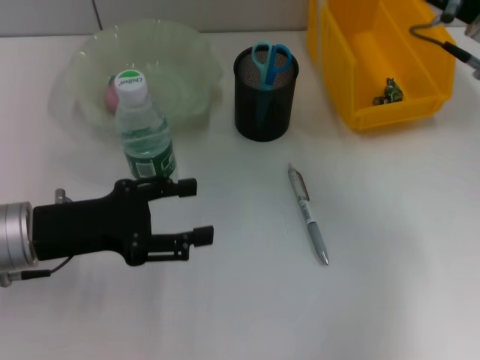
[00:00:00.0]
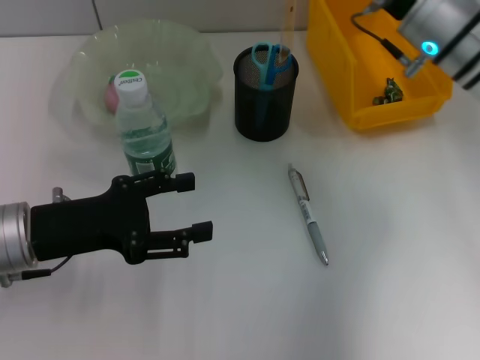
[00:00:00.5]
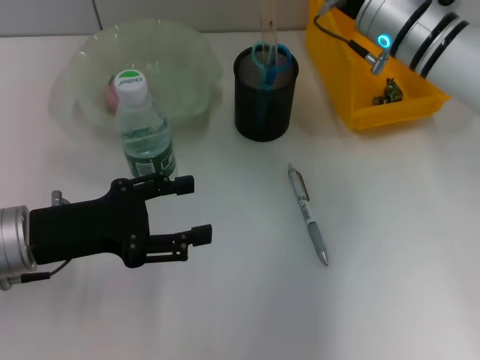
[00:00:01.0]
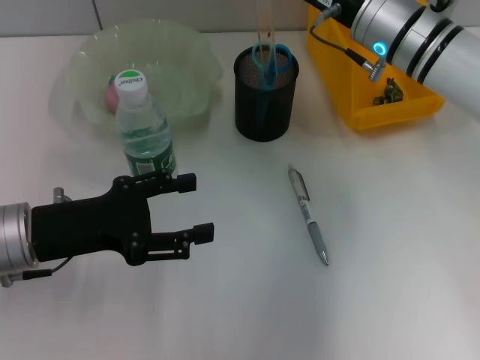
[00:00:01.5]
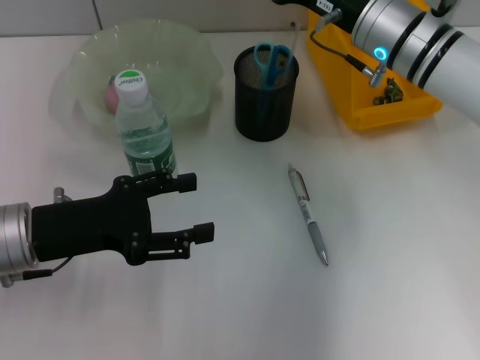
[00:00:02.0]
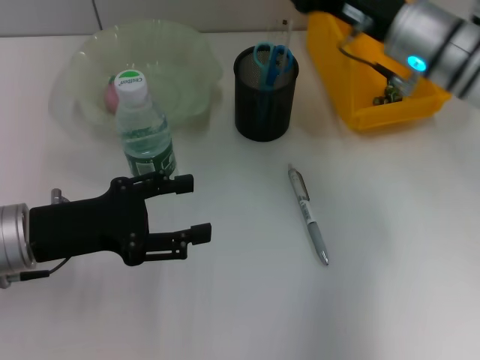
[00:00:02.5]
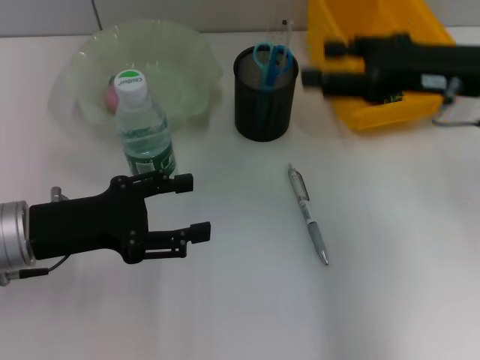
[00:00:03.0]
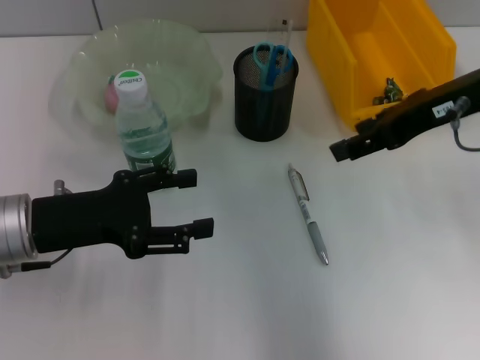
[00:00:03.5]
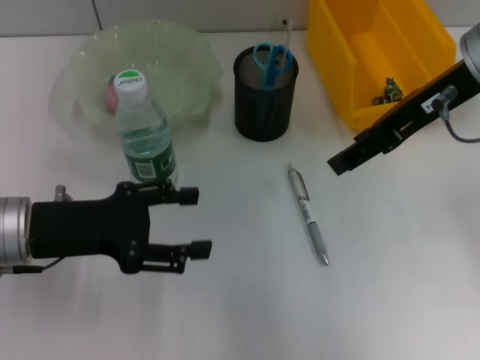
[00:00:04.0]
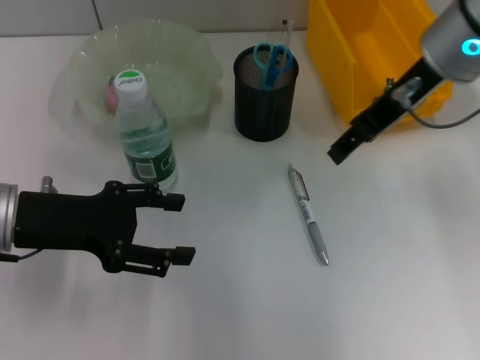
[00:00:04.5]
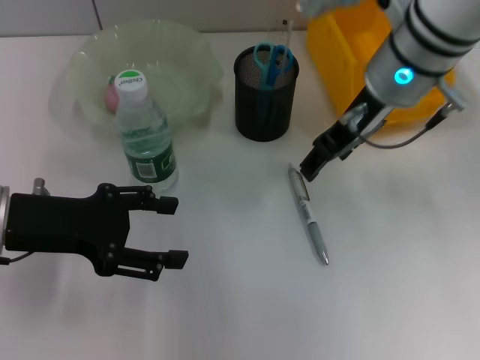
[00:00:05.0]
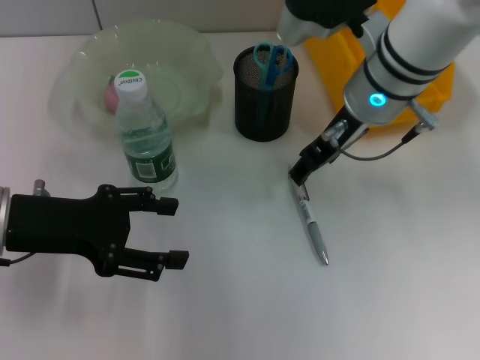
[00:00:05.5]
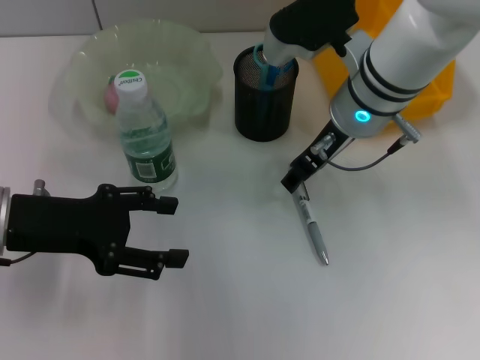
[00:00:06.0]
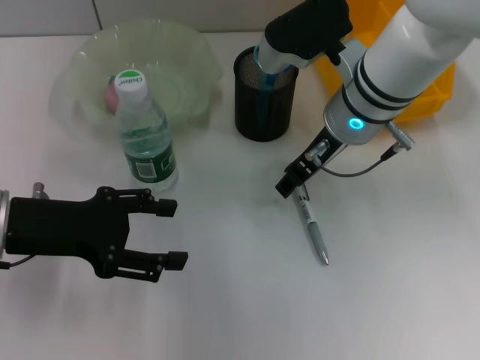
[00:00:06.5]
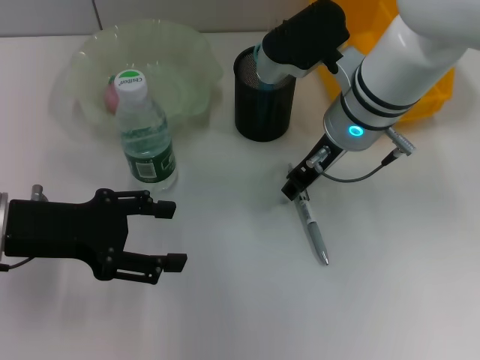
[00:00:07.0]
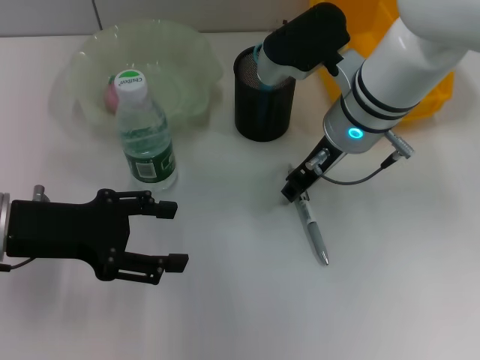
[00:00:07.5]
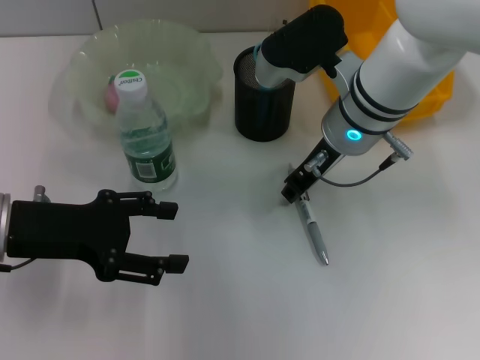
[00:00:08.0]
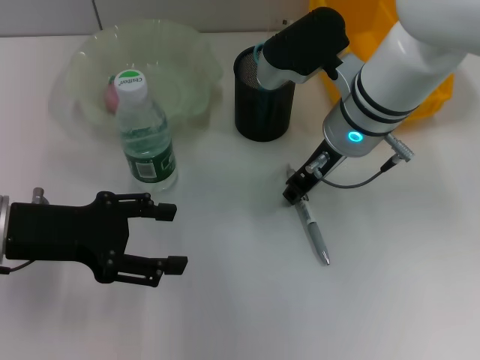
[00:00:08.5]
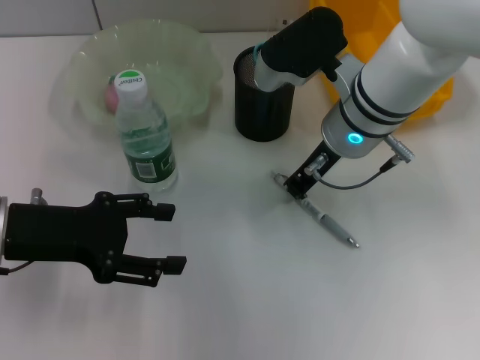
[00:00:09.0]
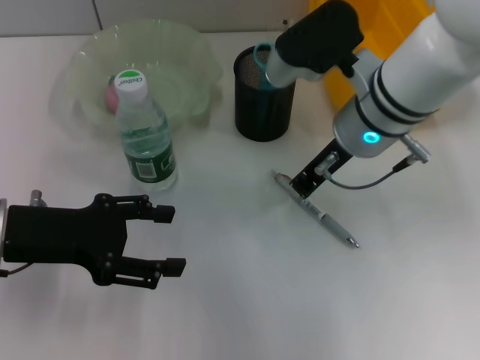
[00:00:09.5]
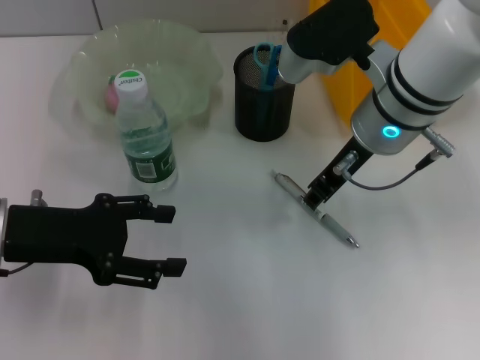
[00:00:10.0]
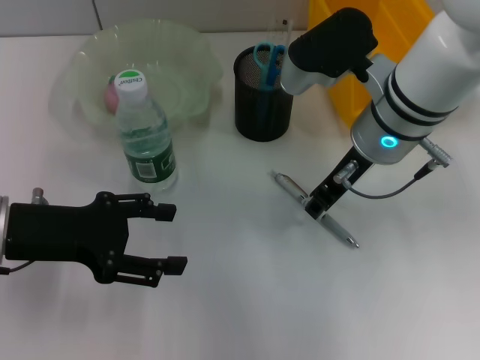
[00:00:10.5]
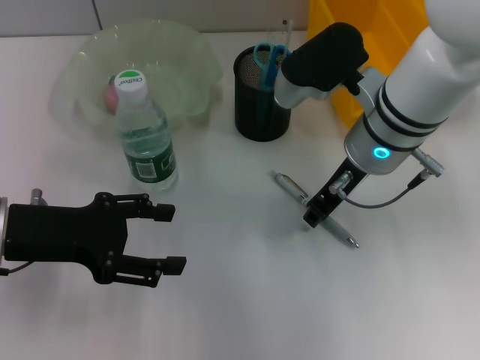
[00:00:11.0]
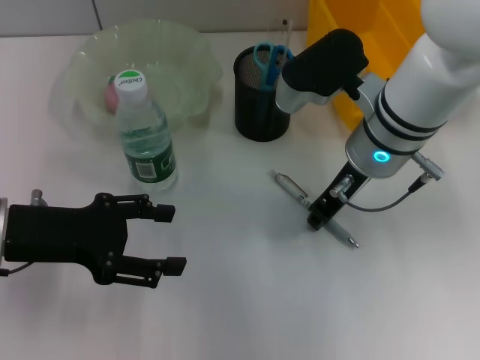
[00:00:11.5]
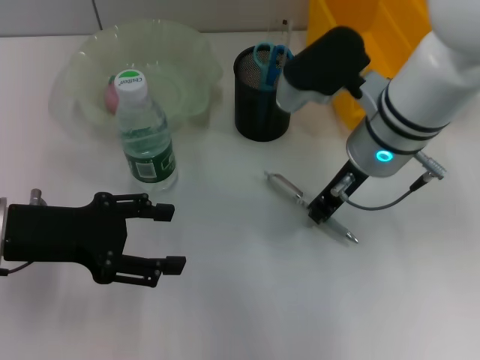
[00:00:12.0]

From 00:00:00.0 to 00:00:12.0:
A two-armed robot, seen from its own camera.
Step, from 00:00:00.0 to 00:00:02.0: Place the ruler into the pen holder with the right hand.
Step, from 00:00:02.5 to 00:00:11.5: Grab the gray spring-action pen with the right hand.
From 00:00:00.0 to 00:00:02.0: The right gripper is displaced to the left, downward and forward by approximately 10 cm.
From 00:00:02.0 to 00:00:04.0: The right gripper moves upward and backward, roughly 15 cm.
From 00:00:04.0 to 00:00:06.0: The right gripper shifts about 15 cm downward and to the left.
From 00:00:06.0 to 00:00:08.0: The right gripper closes.
From 00:00:08.0 to 00:00:10.0: The right gripper closes its fingers.
From 00:00:10.0 to 00:00:12.0: The right gripper opens and closes again.

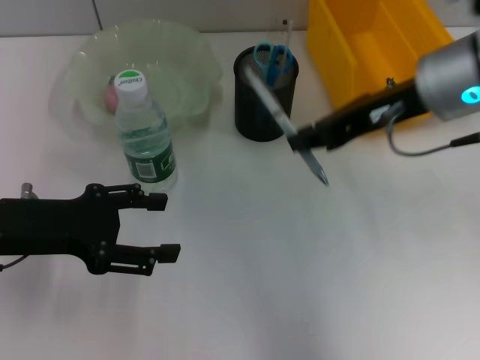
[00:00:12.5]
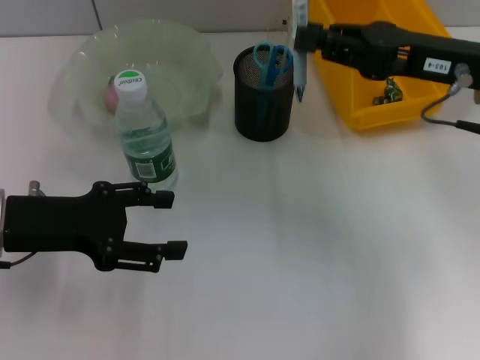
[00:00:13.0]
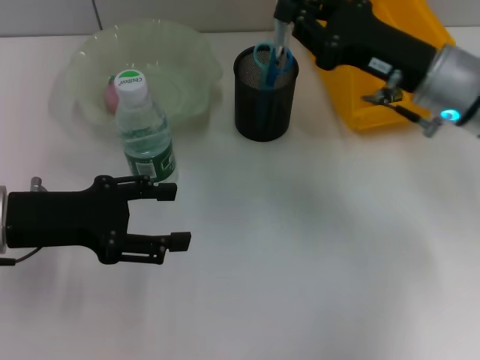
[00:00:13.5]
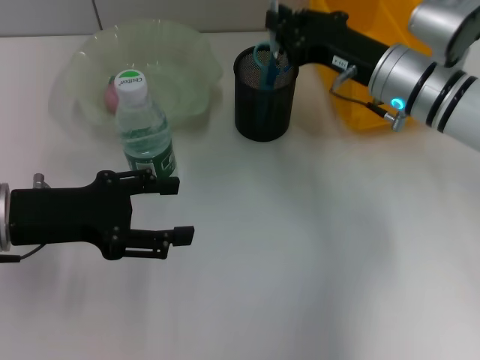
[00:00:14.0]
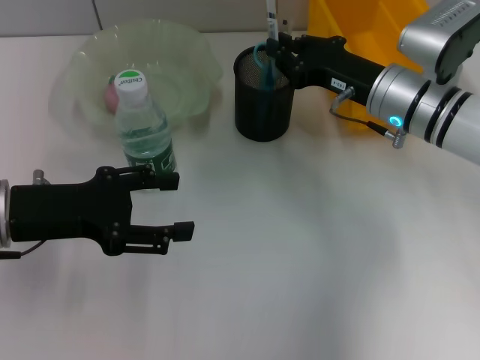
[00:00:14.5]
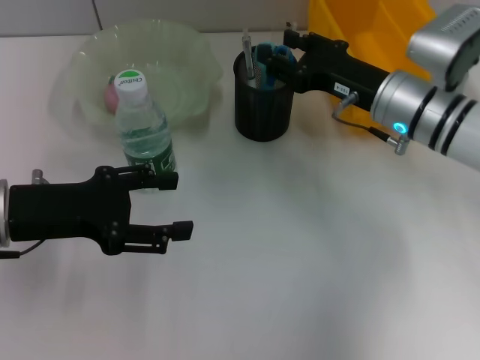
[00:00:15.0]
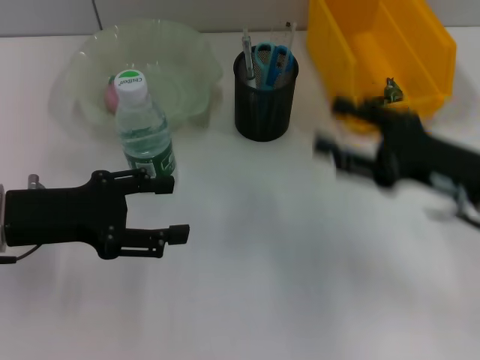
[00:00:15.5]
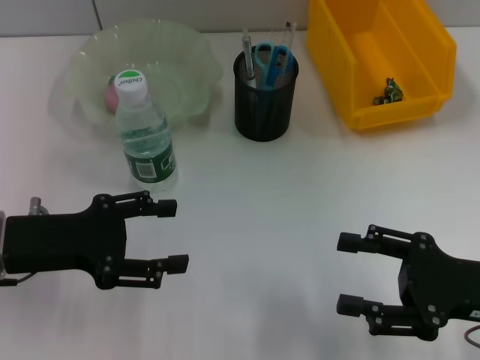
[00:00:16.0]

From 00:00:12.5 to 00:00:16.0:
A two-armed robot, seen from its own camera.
Step, from 00:00:12.5 to 00:00:15.0: Place the gray spring-action pen into the pen holder with the right hand.
From 00:00:12.5 to 00:00:14.5: The right gripper goes about 15 cm downward.
From 00:00:14.5 to 00:00:16.0: The right gripper is displaced backward and to the right by roughly 20 cm, and opens.

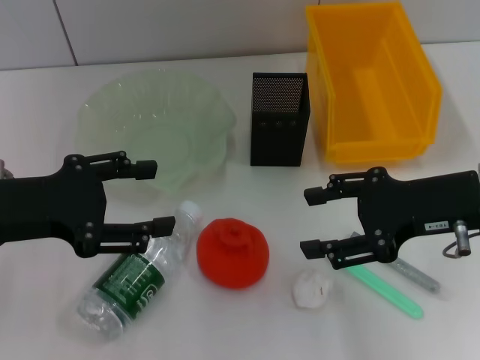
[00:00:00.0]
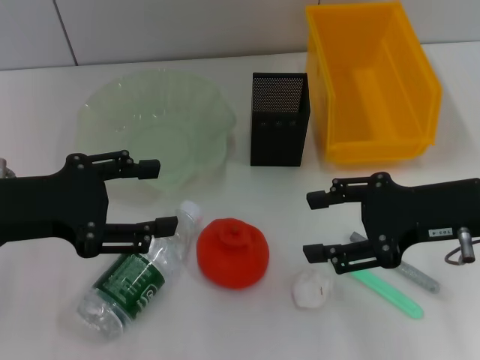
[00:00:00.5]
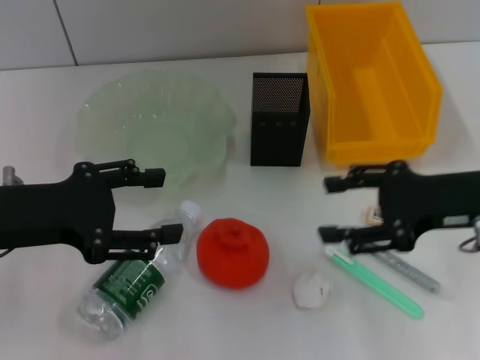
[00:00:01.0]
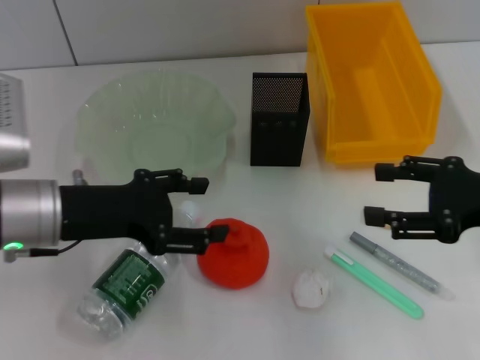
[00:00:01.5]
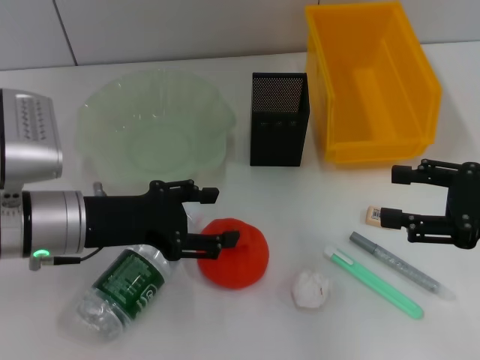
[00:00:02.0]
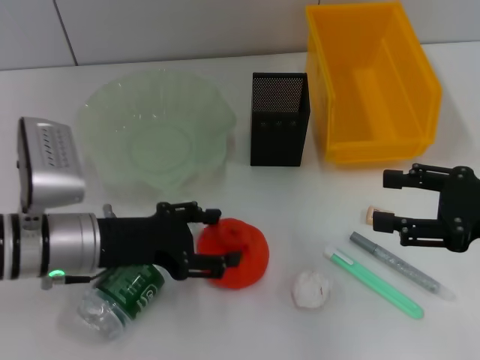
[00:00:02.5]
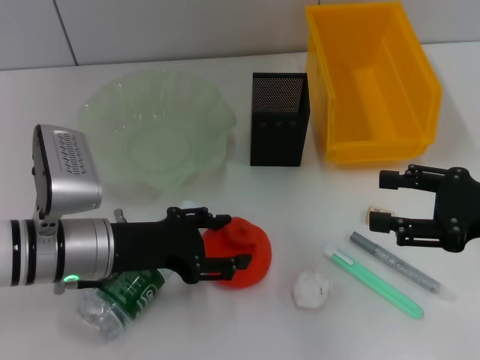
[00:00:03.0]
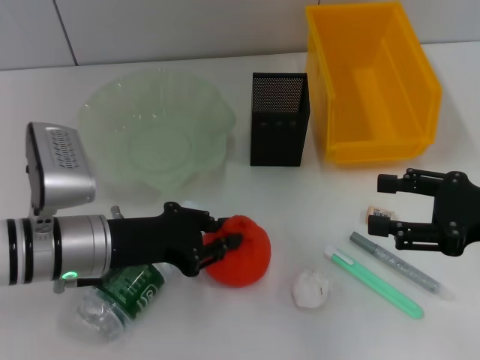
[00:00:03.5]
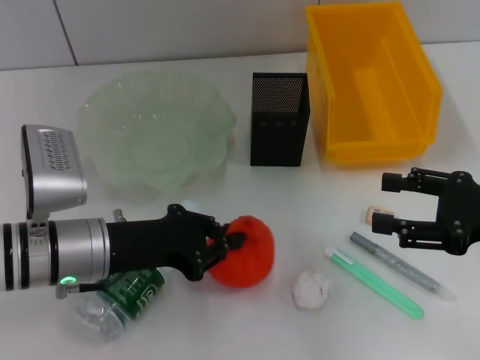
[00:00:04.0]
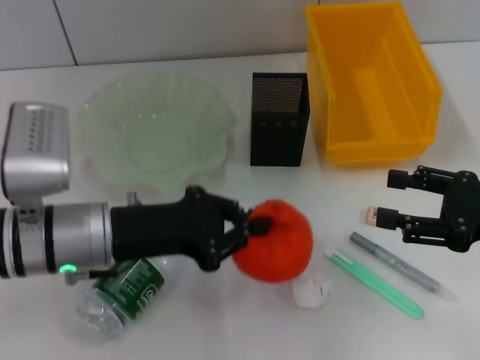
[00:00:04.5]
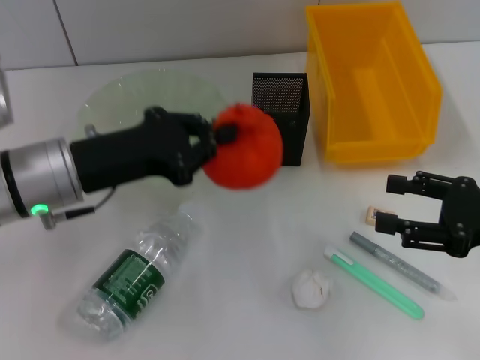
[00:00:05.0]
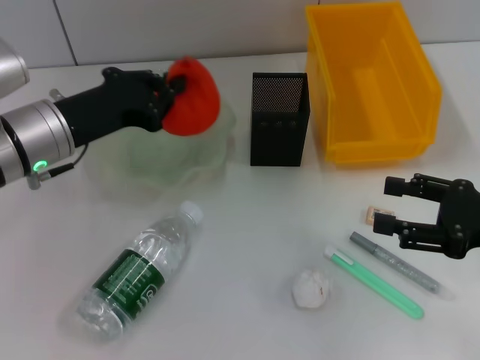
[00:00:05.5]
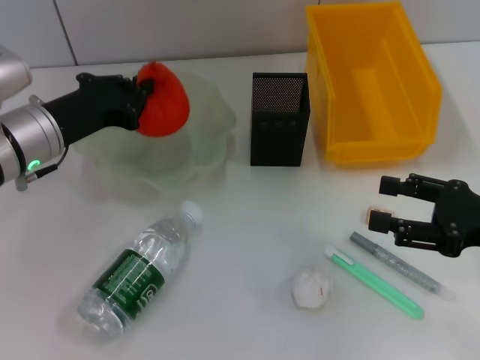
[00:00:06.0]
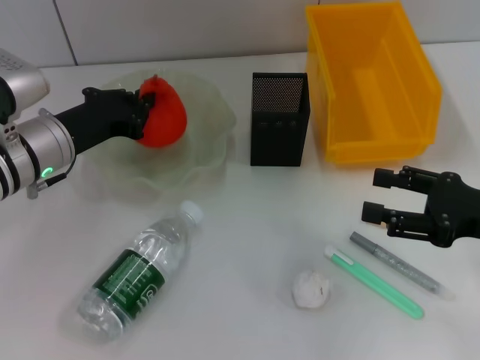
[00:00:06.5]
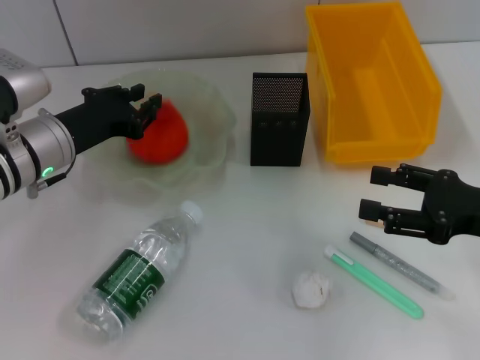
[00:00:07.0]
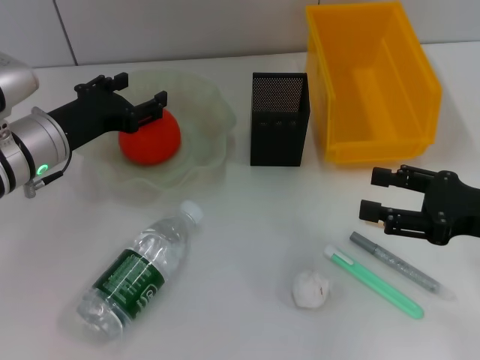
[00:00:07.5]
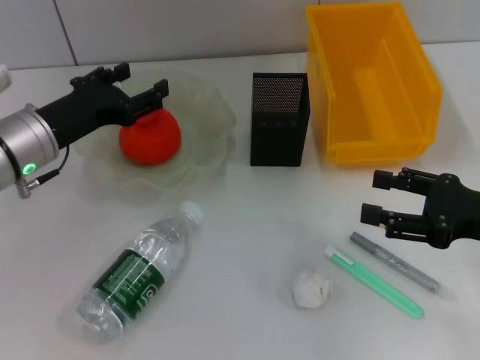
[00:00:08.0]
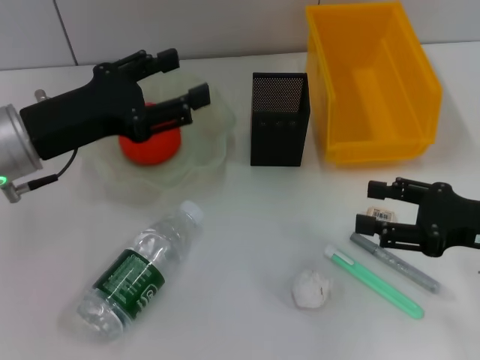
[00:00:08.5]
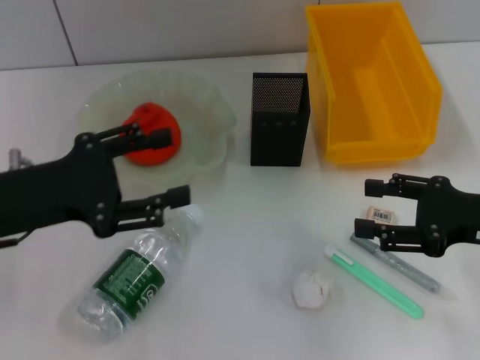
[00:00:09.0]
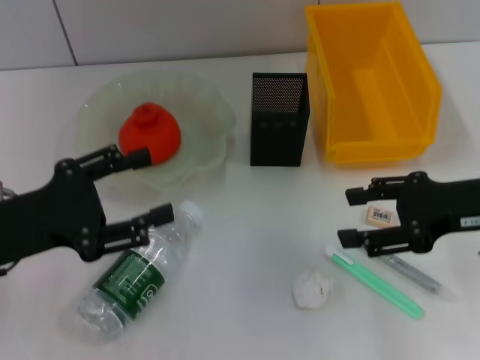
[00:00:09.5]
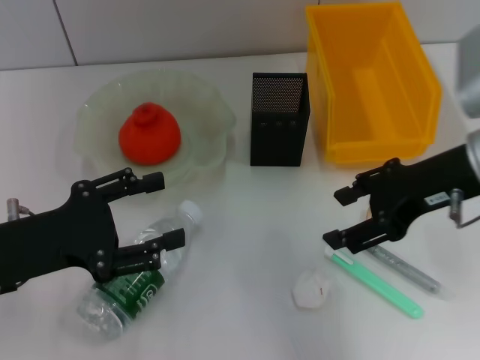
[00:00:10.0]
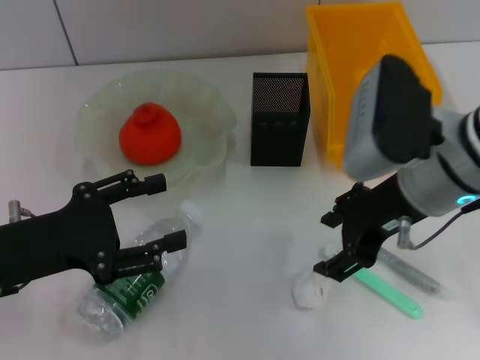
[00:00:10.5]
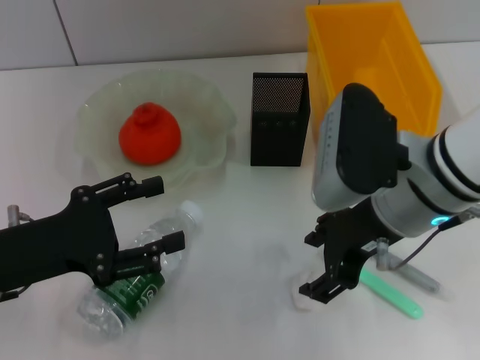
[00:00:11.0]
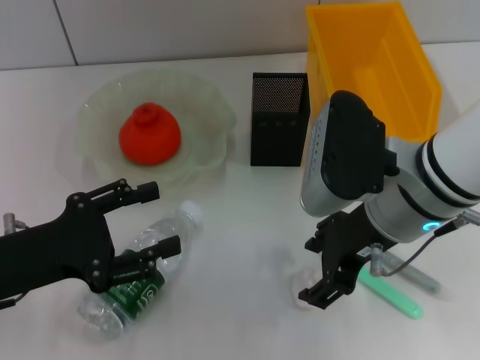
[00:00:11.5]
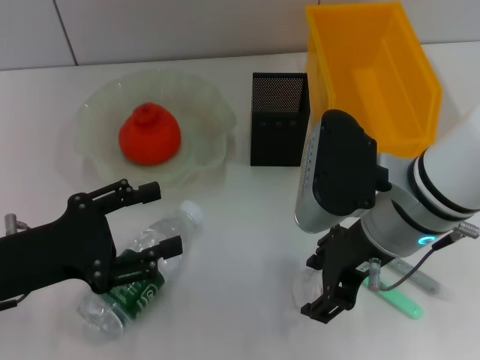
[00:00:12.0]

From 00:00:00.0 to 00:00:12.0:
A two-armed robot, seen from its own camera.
Step, from 00:00:00.0 to 00:00:03.5: Grab the orange with the left hand.
Step, from 00:00:04.0 to 00:00:07.0: Place the orange into the fruit bowl with the left hand.
From 00:00:00.0 to 00:00:02.0: The right gripper moves to the right, some 10 cm, while the left gripper moves downward and to the right, roughly 10 cm.
From 00:00:02.0 to 00:00:04.0: The left gripper closes.
From 00:00:04.0 to 00:00:06.0: The left gripper shifts about 10 cm forward.
From 00:00:06.0 to 00:00:08.0: The left gripper opens.
From 00:00:08.0 to 00:00:10.0: The right gripper shifts some 15 cm upward, to the left and forward; the left gripper shifts some 10 cm backward.
From 00:00:10.0 to 00:00:12.0: The right gripper is displaced to the left by approximately 10 cm.
